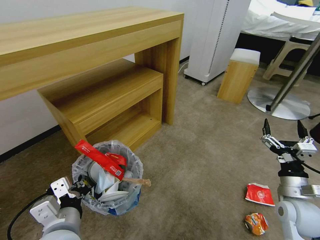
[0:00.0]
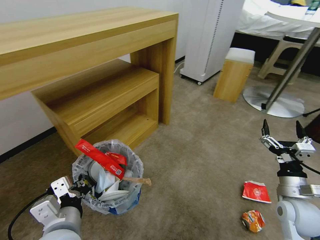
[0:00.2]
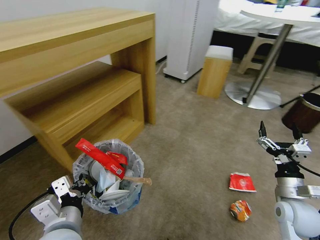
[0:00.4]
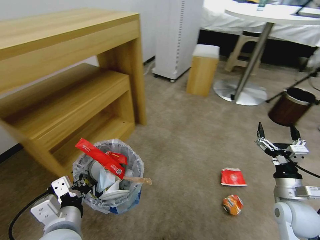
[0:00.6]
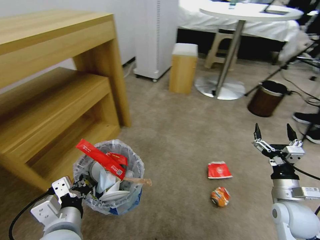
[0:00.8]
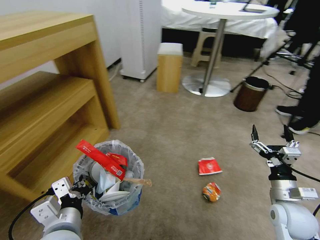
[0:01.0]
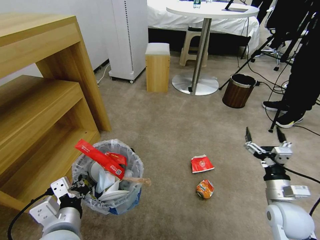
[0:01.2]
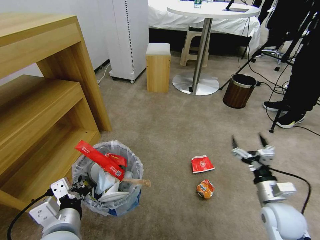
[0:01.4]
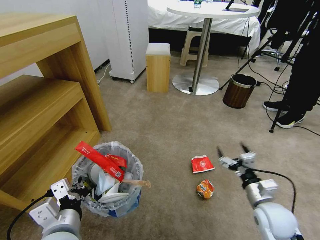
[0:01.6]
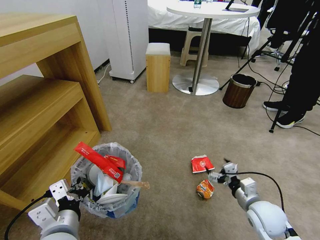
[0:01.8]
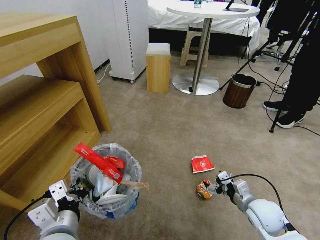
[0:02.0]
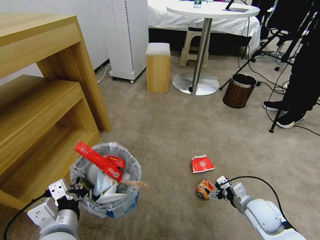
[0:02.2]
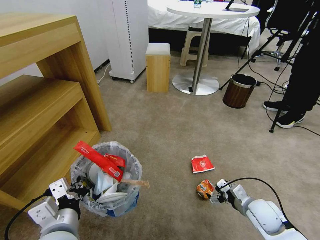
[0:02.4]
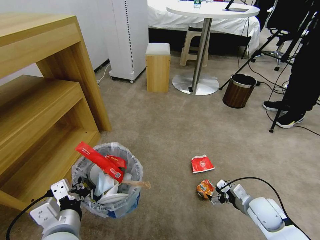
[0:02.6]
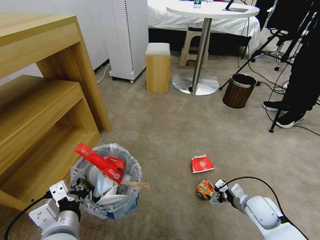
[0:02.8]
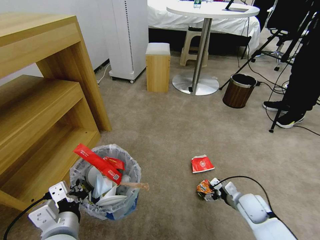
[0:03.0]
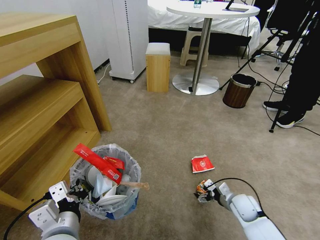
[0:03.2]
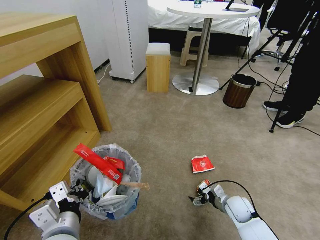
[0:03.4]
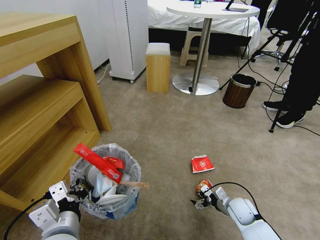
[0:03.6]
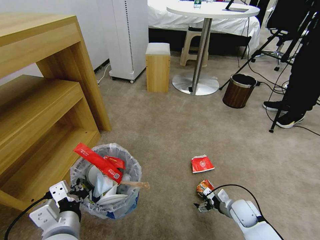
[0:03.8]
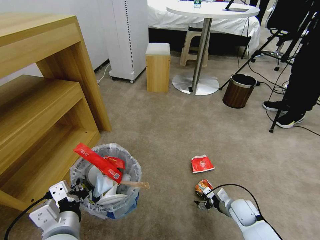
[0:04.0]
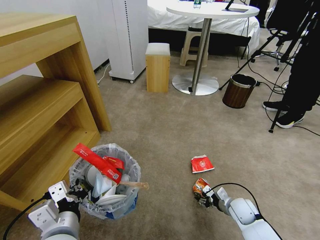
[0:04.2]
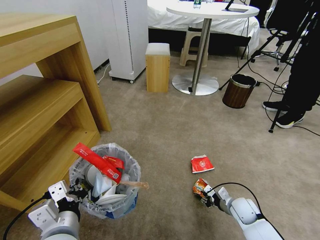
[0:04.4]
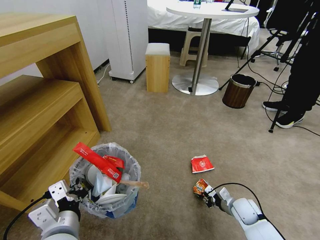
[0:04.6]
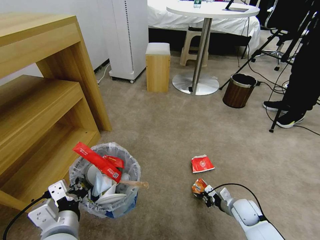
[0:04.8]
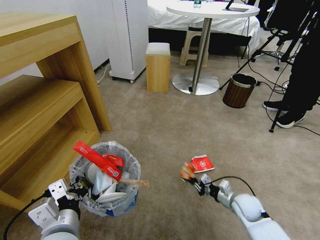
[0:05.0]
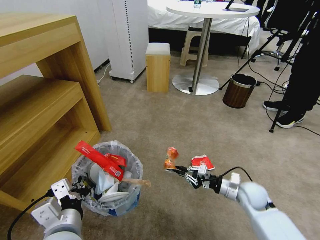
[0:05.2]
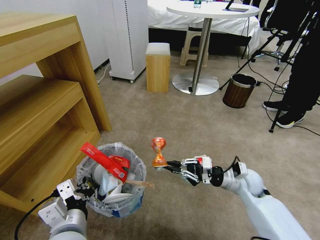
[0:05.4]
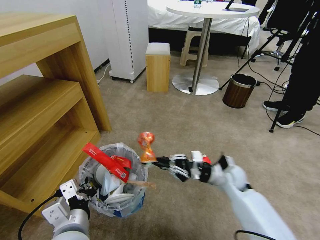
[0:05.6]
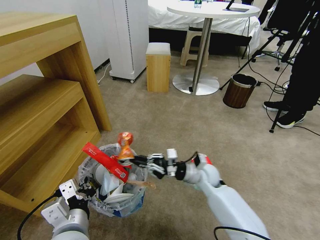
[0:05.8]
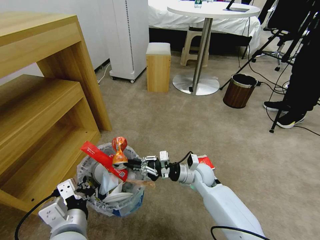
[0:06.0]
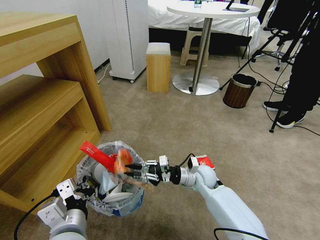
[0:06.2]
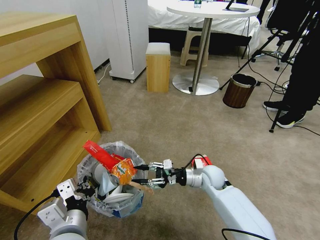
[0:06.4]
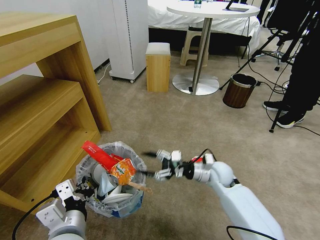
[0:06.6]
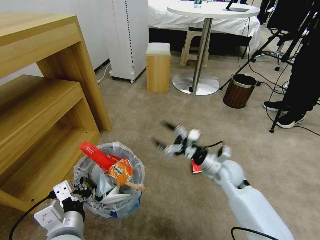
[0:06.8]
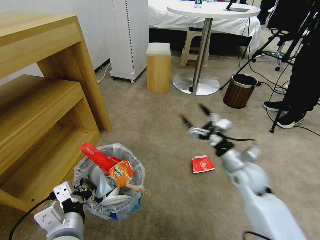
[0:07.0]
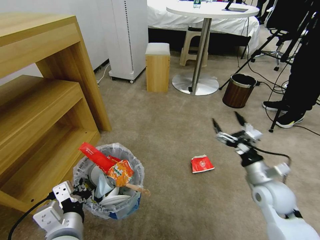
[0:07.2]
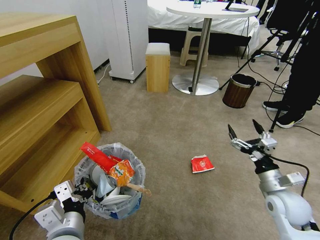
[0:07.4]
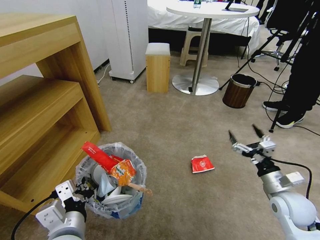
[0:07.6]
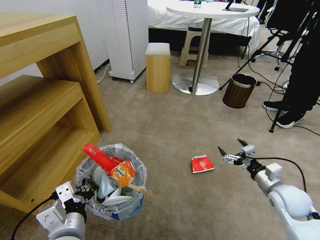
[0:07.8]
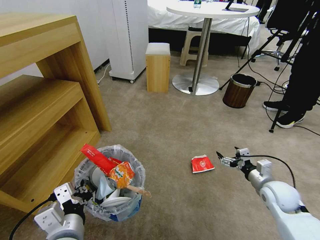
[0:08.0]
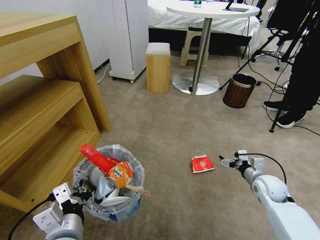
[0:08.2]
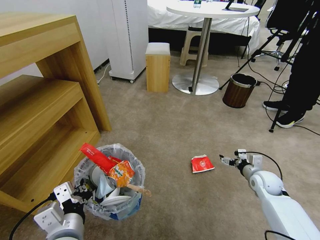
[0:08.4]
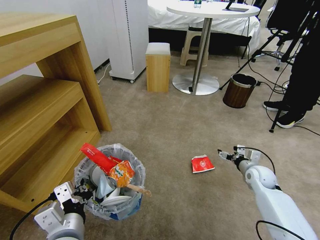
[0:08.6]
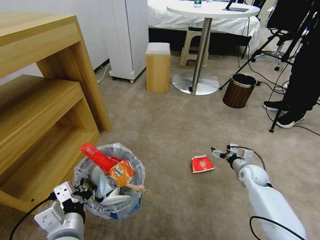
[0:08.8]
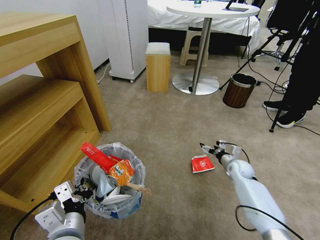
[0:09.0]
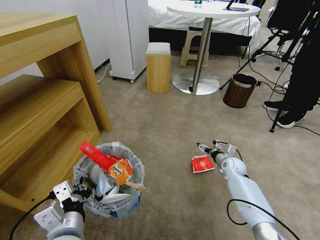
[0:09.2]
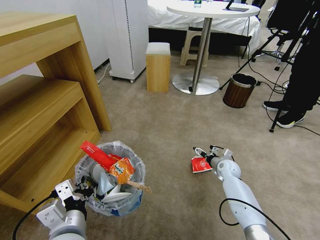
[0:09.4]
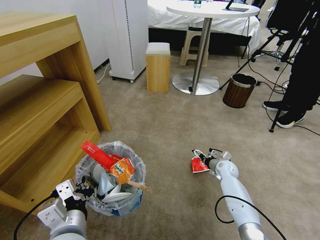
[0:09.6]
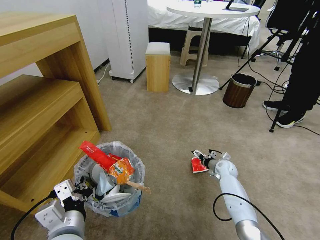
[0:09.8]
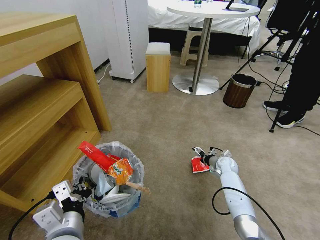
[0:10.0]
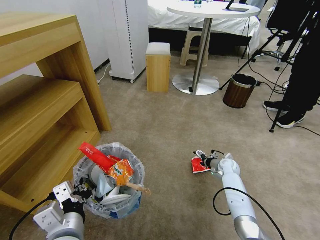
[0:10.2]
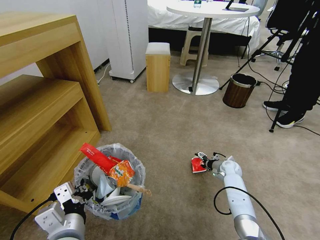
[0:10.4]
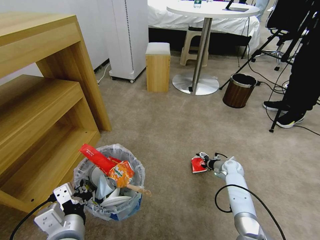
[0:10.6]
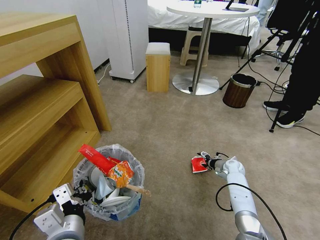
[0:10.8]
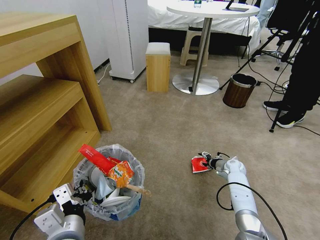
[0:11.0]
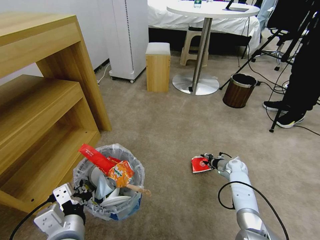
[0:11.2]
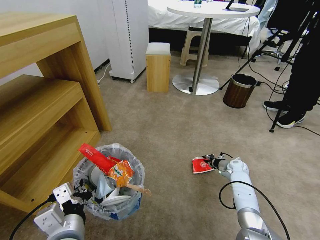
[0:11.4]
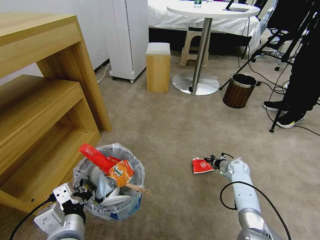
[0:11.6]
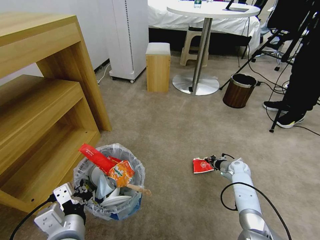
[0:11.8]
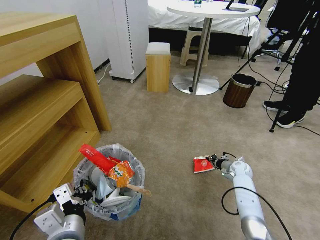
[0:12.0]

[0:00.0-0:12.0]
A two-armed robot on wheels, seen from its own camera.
Task of the whole recording: Pick up the trash bin and place the garbage on the floor into it.
0:00.0 to 0:01.6: The right gripper shifts by roughly 5 cm.
0:01.6 to 0:03.0: The right gripper shifts approximately 10 cm downward and forward.
0:03.0 to 0:04.4: The right gripper goes some 5 cm downward, and closes up.
0:04.4 to 0:06.0: The right gripper is displaced to the left, upward and forward by about 25 cm.
0:06.0 to 0:07.6: The right gripper moves to the right and backward, roughly 25 cm, and opens its fingers.
0:07.6 to 0:09.0: The right gripper shifts some 20 cm forward and downward.
0:09.0 to 0:10.4: The right gripper ends up about 5 cm from where it was.
0:10.4 to 0:12.0: The right gripper travels to the right by about 5 cm, and closes its fingers.

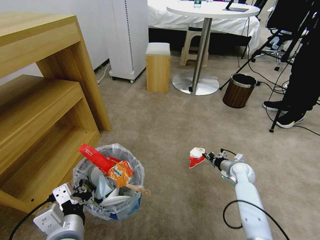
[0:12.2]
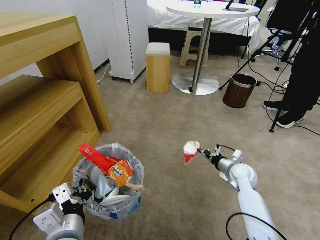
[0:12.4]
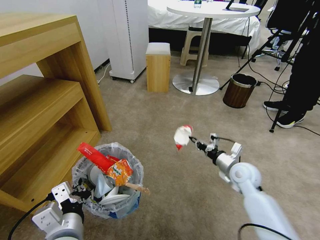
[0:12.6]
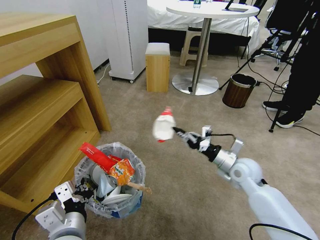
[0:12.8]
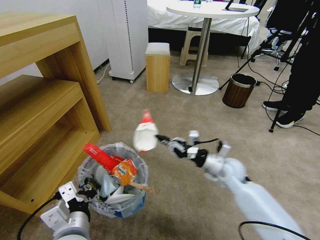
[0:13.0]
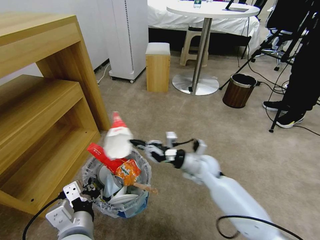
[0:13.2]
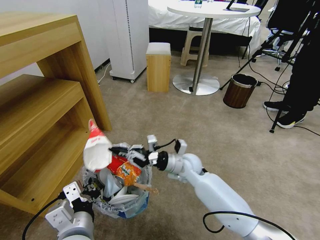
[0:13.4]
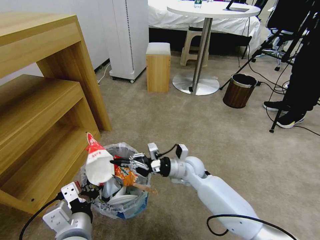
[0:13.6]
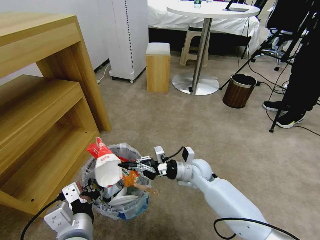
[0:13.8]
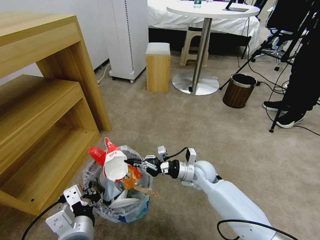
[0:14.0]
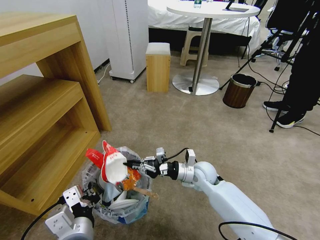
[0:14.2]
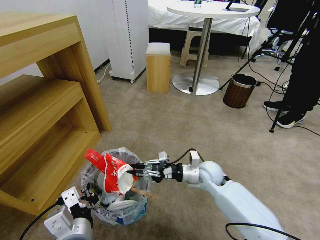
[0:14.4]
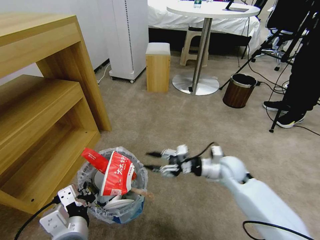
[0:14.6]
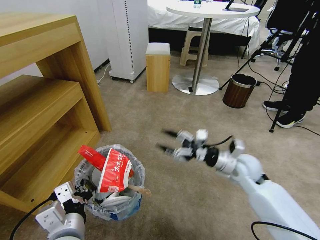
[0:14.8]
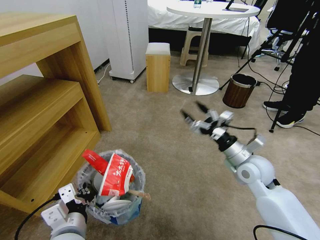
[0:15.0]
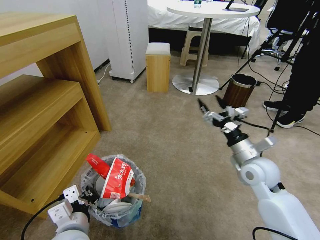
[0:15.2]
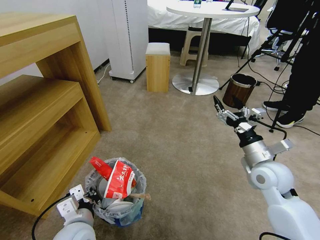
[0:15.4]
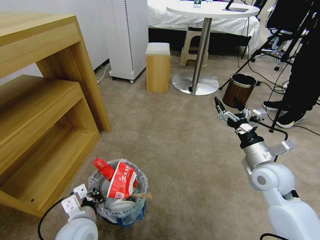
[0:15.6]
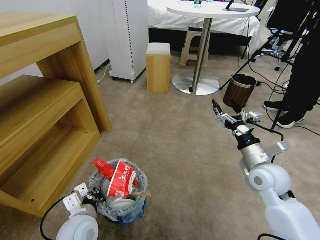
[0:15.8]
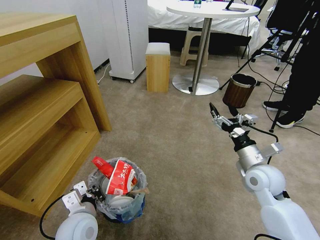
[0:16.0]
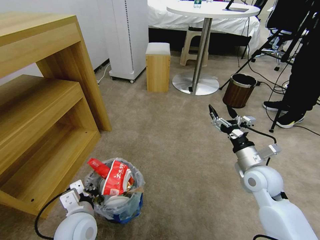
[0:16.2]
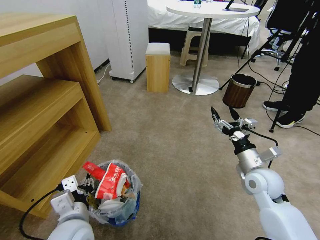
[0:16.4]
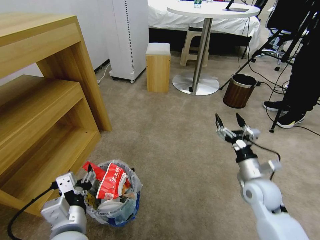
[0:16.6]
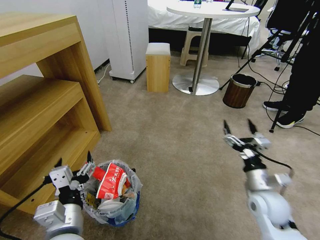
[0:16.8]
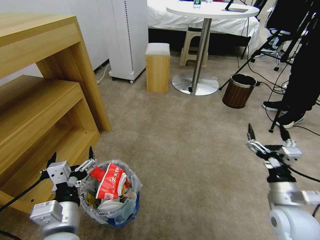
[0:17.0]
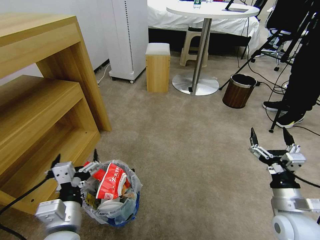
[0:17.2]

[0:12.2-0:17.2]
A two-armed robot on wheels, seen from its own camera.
Task of the whole recording: Pick up the trash bin and place the garbage on the floor into it.
0:12.2 to 0:13.8: The right gripper moves to the left and upward, approximately 25 cm.
0:13.8 to 0:15.6: The left gripper heads downward and forward, covering approximately 10 cm; the right gripper goes about 20 cm to the right, upward and backward, and opens up.
0:15.6 to 0:17.2: The left gripper changes place by roughly 5 cm, and opens; the right gripper heads backward and downward, covering approximately 15 cm.
